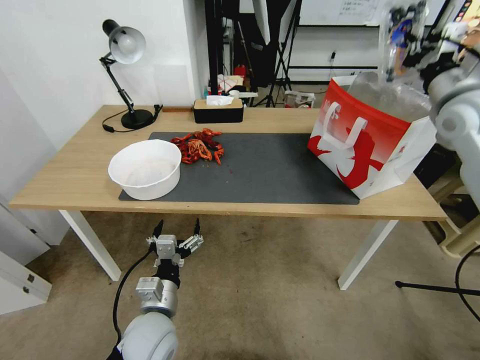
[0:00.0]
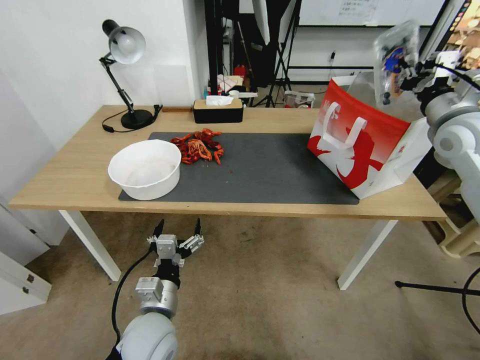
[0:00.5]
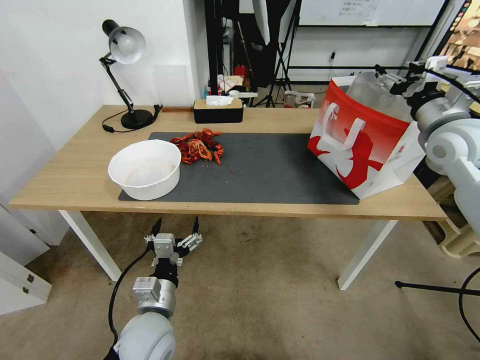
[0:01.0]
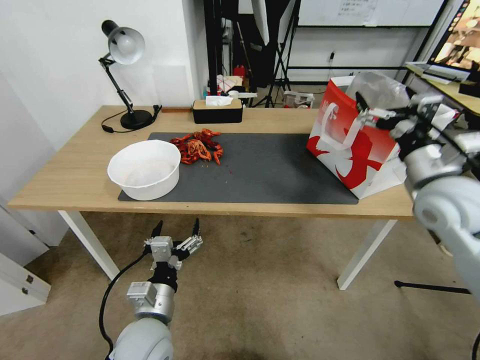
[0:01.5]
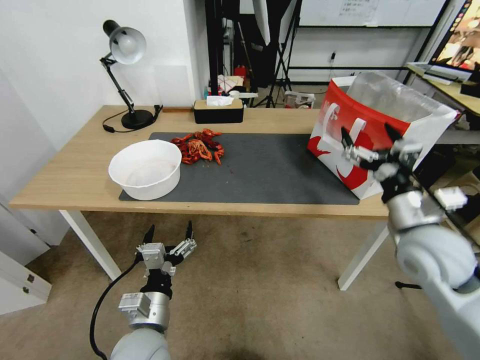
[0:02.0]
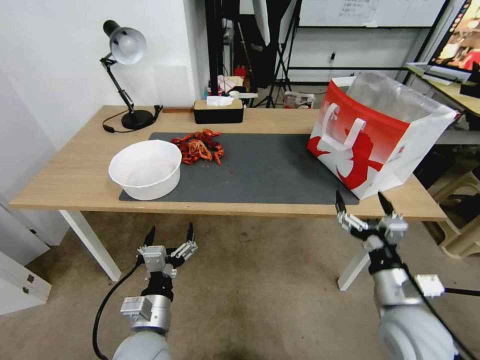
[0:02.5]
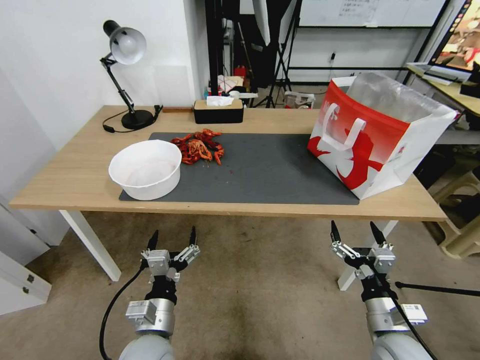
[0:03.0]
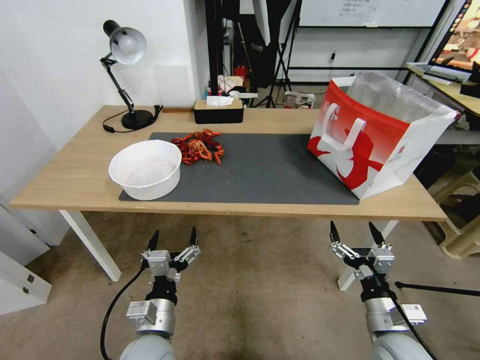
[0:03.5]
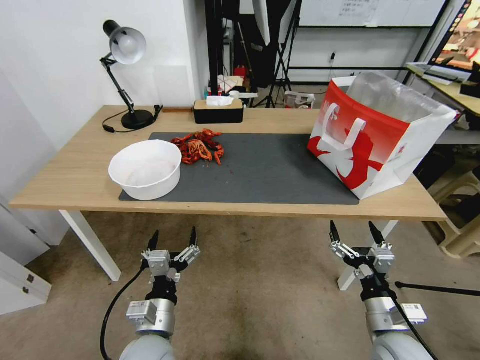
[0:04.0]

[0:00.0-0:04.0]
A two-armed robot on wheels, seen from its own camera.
Task of the whole recording: Close the takeout container lid, then place the container into the takeout bag.
0:00.0 to 0:02.0: The right gripper moves backward, downward and to the left, roughly 25 cm, and opens its fingers.
0:02.0 to 0:04.0: The right gripper shifts some 20 cm downward and backward.

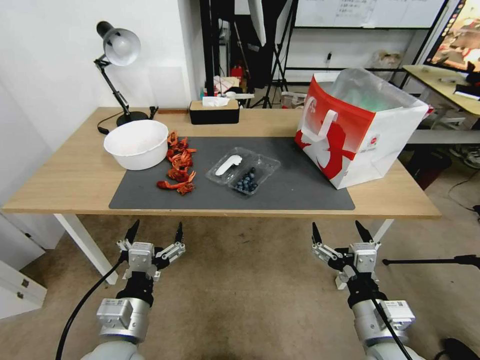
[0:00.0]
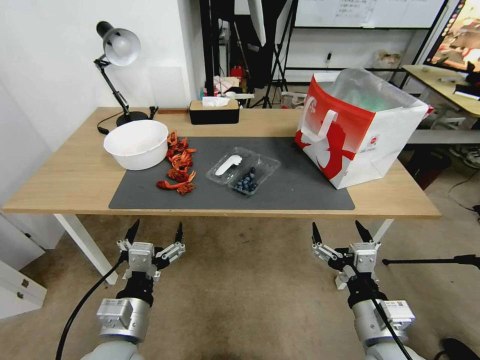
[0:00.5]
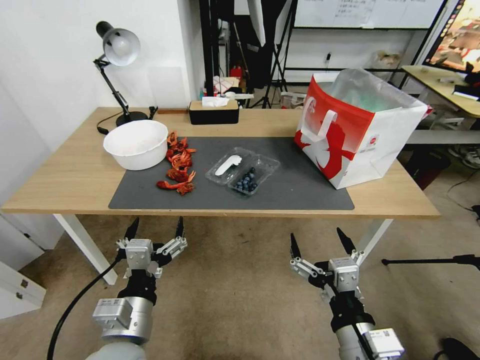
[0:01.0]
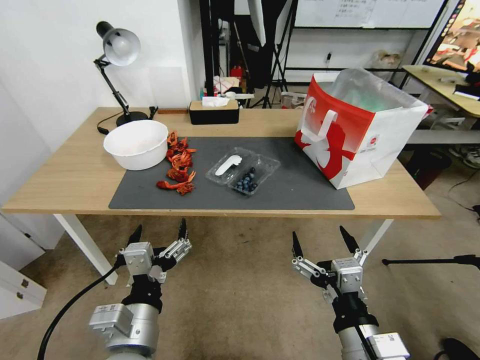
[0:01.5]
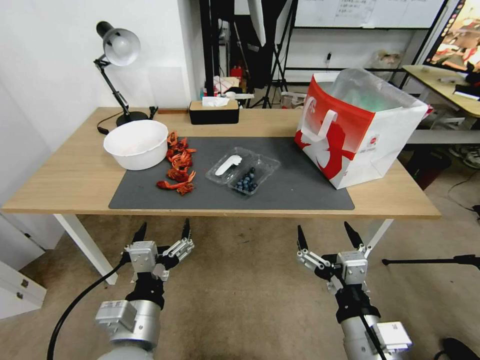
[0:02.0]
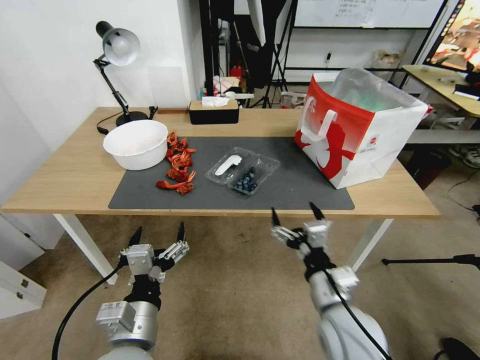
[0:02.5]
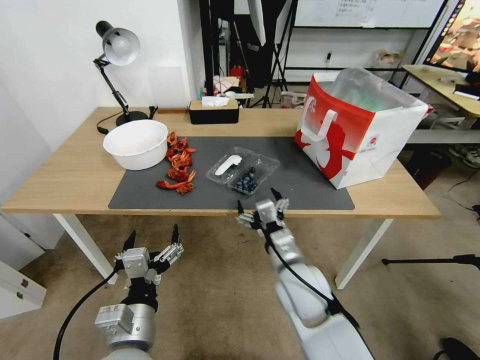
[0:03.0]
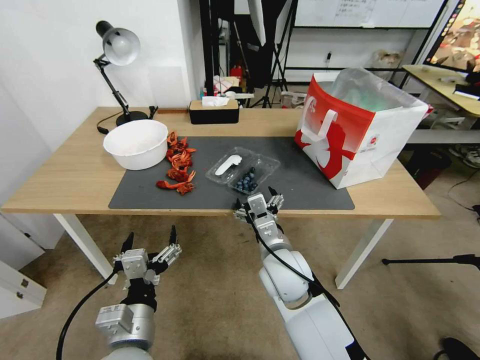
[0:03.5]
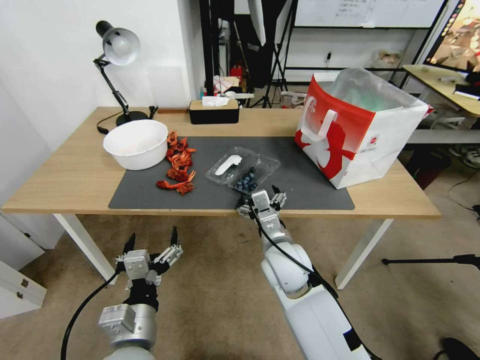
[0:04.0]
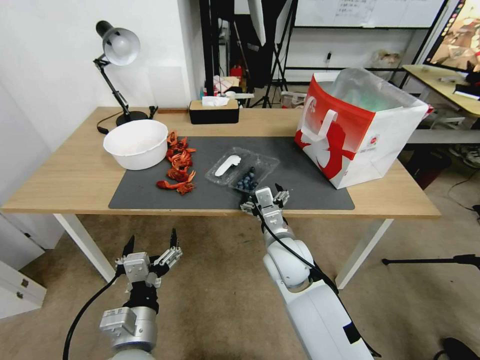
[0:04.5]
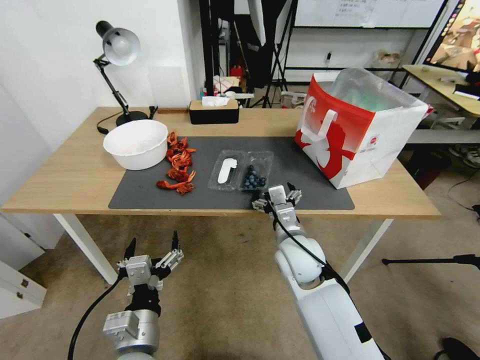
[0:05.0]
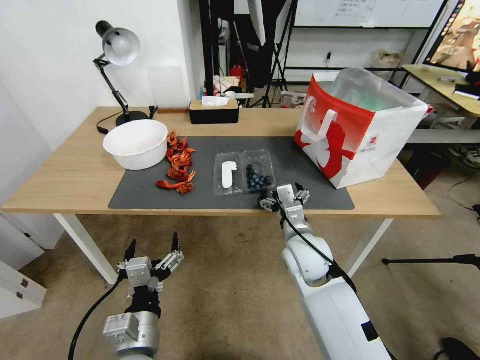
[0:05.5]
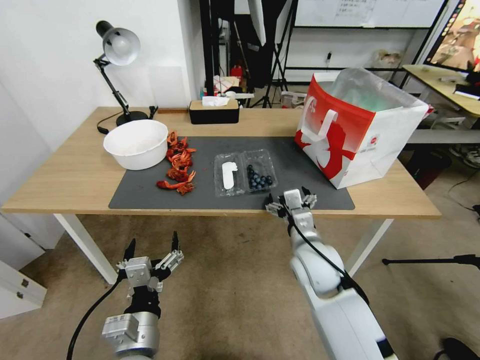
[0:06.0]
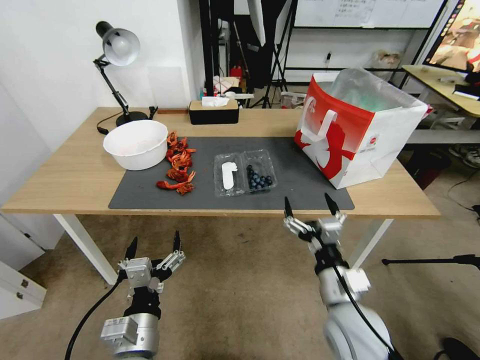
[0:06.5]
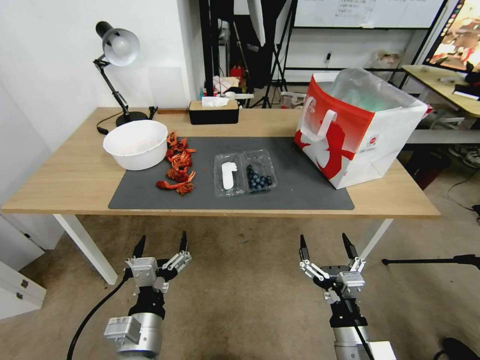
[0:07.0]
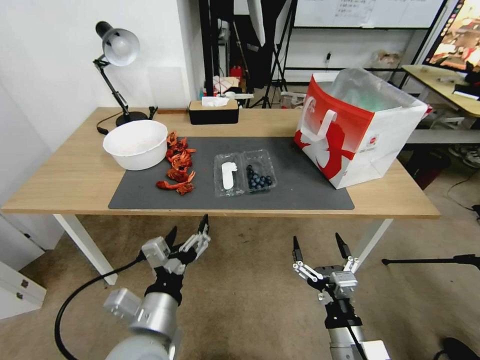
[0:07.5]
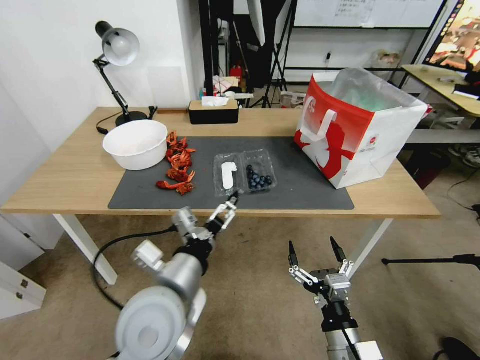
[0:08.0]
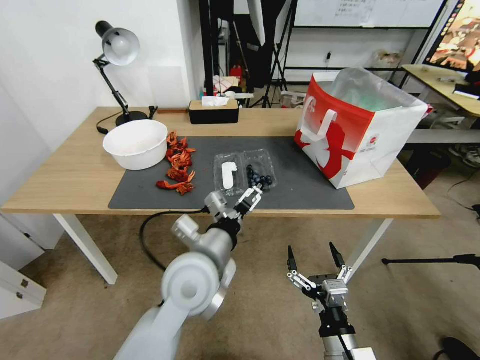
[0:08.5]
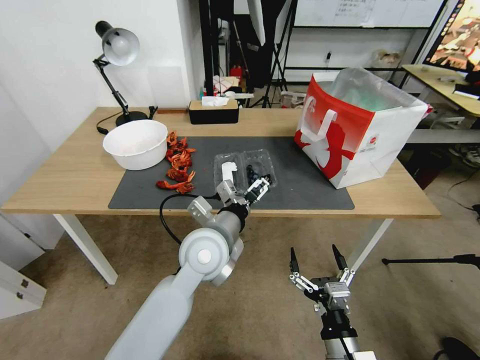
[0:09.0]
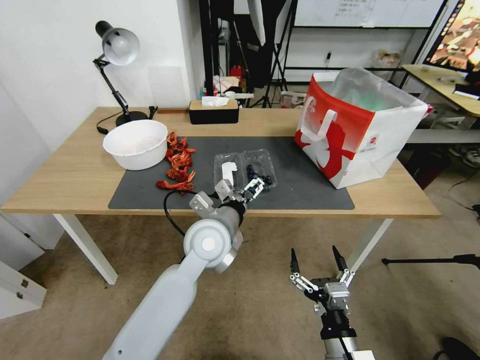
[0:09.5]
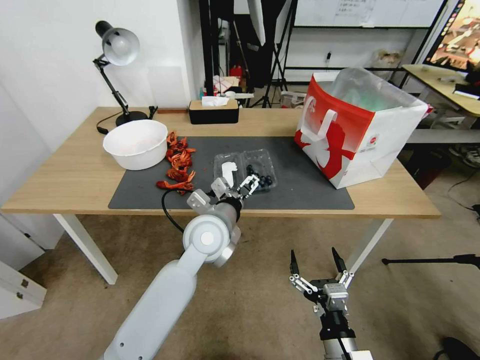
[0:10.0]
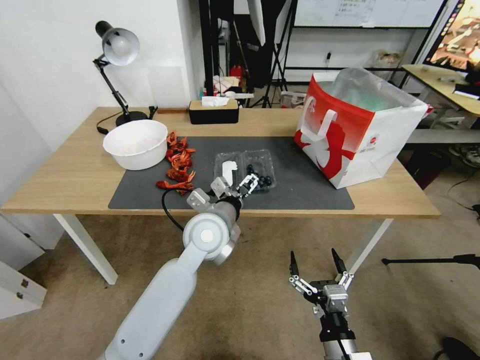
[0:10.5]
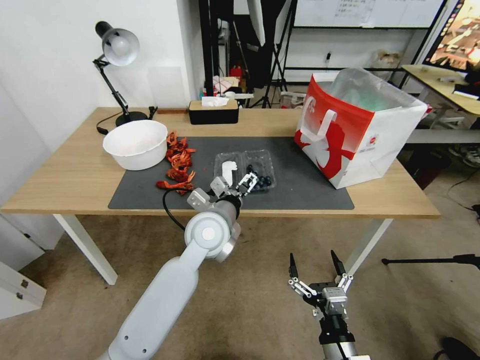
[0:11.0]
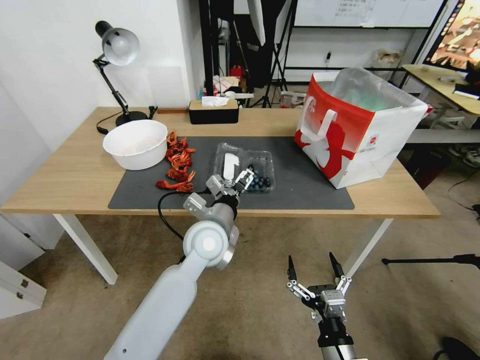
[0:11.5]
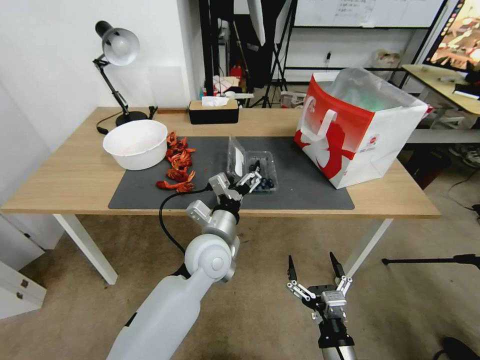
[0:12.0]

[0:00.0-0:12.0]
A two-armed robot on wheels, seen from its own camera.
Task of the whole recording: Close the takeout container lid, then place the container into the takeout bag.
0:02.0 to 0:04.0: The right gripper heads forward and to the left, covering roughly 25 cm.
0:04.0 to 0:06.0: The right gripper moves to the right, approximately 5 cm.
0:06.0 to 0:08.0: The right gripper travels backward and downward by approximately 20 cm. The left gripper shifts roughly 15 cm upward and forward.
0:08.0 to 0:10.0: The left gripper shifts some 15 cm forward and to the right.

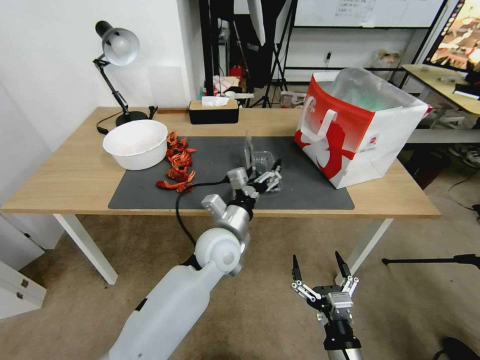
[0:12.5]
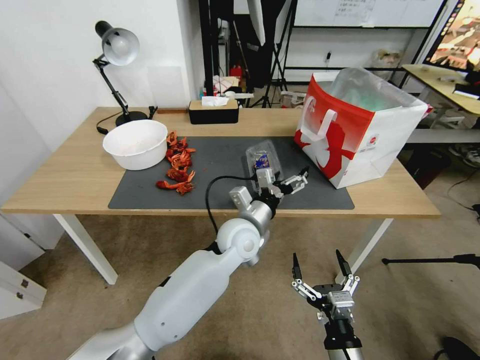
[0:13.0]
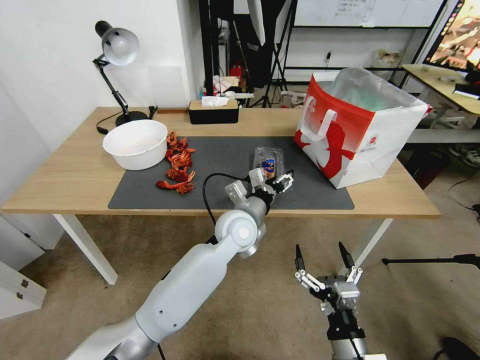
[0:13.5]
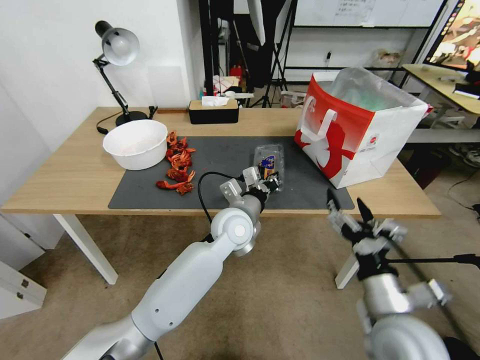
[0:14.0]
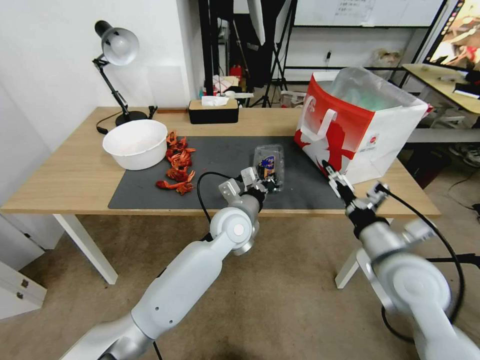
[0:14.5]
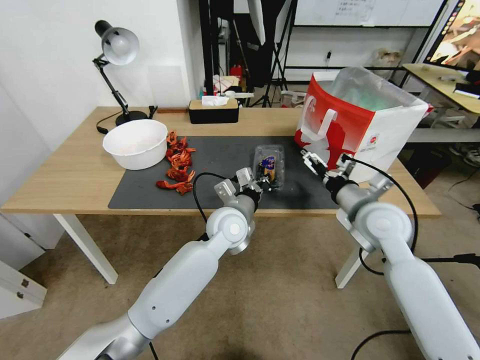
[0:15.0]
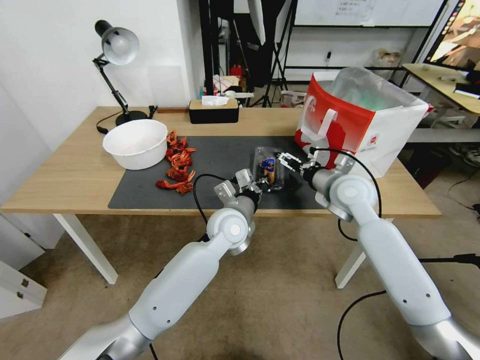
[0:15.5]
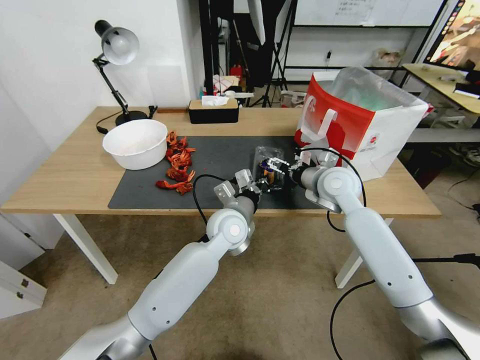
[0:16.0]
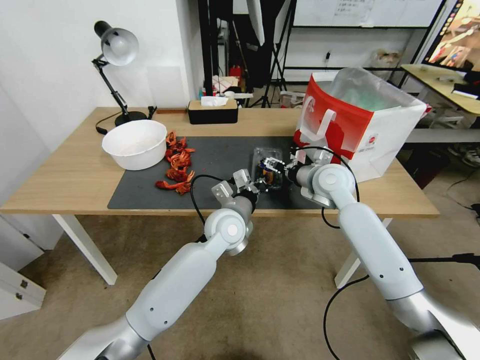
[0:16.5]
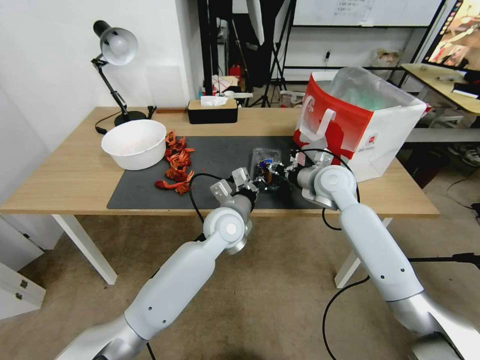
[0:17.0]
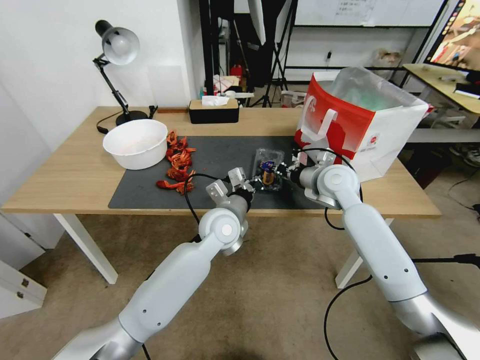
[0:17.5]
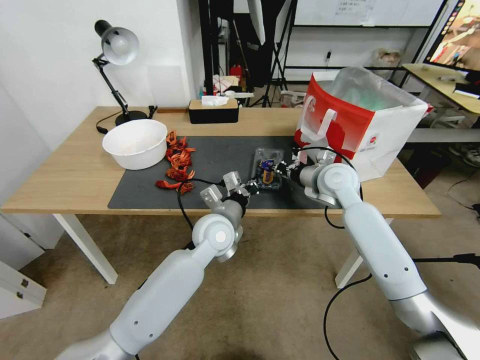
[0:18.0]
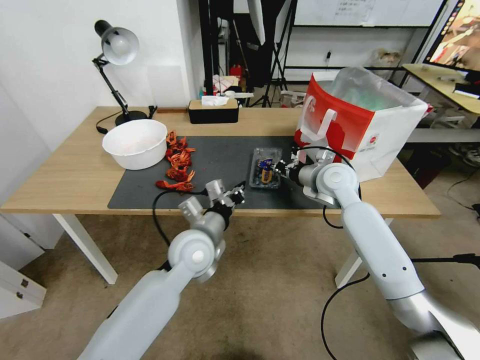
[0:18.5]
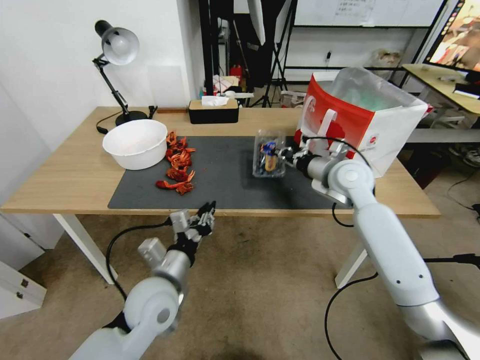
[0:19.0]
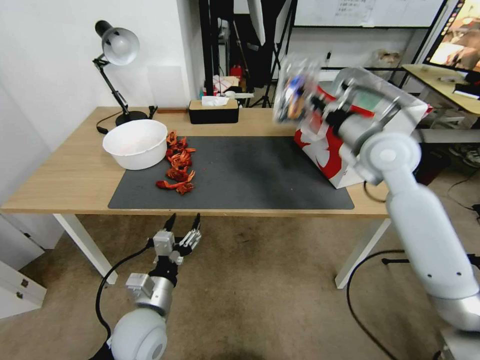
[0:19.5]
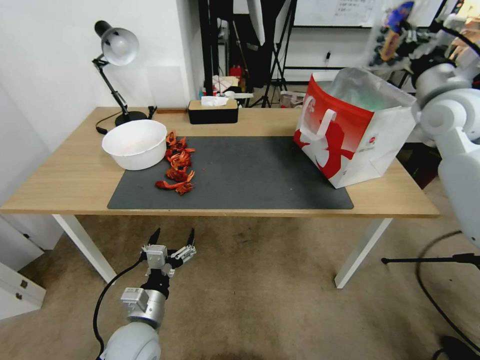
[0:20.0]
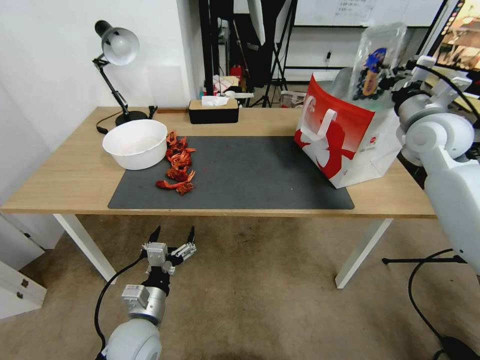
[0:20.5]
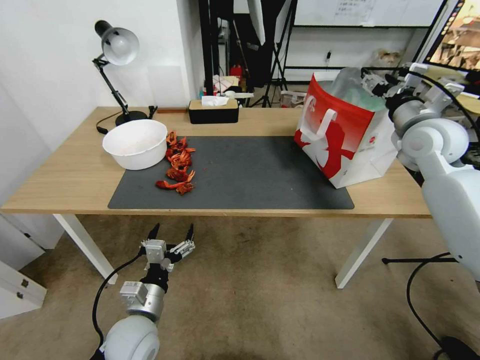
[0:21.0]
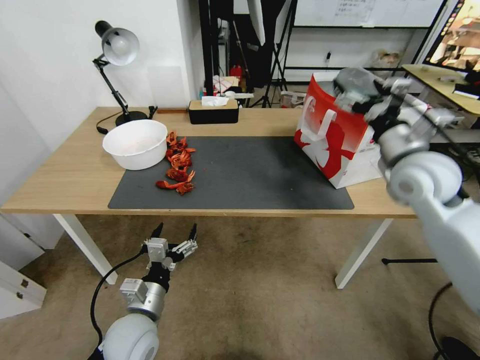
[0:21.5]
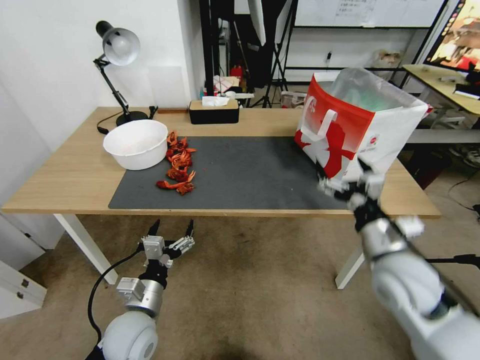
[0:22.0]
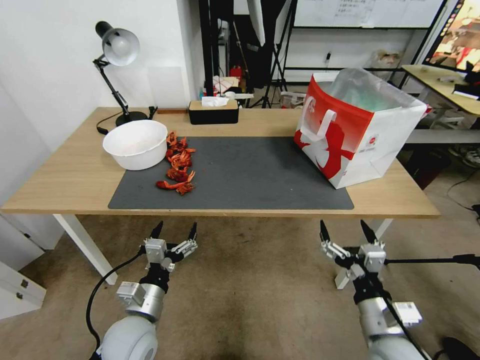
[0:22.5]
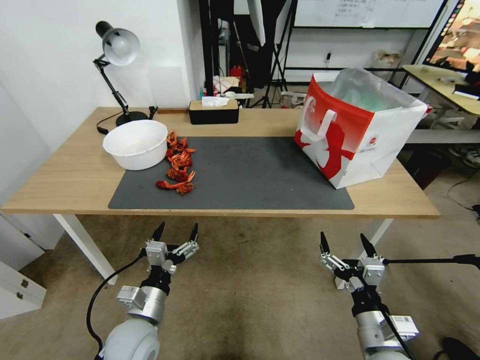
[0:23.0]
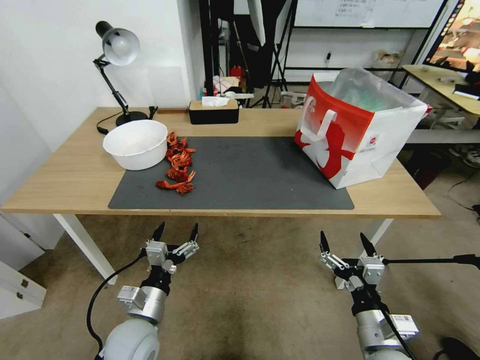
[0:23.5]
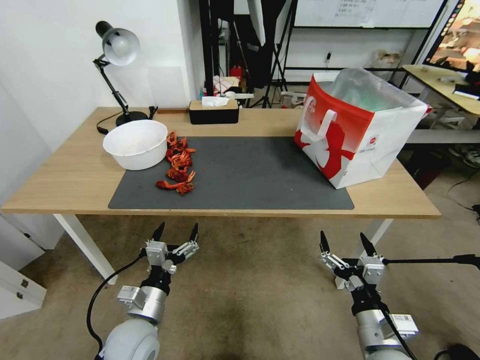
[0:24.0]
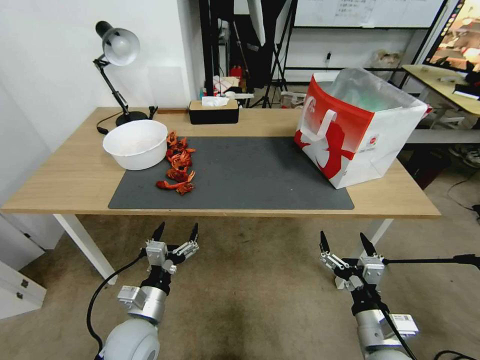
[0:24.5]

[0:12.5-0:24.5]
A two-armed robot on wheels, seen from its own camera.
Task of the whole recording: Close the takeout container lid, then place the container into the takeout bag.
0:12.5 to 0:14.5: The left gripper travels forward by some 5 cm, and closes its fingers. Meanwhile the right gripper is displaced forward, upward and to the right by roughly 25 cm.
0:14.5 to 0:16.5: The right gripper shifts some 20 cm forward.
0:16.5 to 0:18.5: The left gripper moves to the left and backward, approximately 10 cm. Meanwhile the right gripper closes up.
0:18.5 to 0:20.5: The right gripper goes about 20 cm to the right and upward. The left gripper is displaced backward, downward and to the left by roughly 20 cm, and opens up.
0:20.5 to 0:22.5: The right gripper is displaced backward and downward by roughly 40 cm, and opens its fingers.
0:22.5 to 0:24.5: The grippers move only a little.
